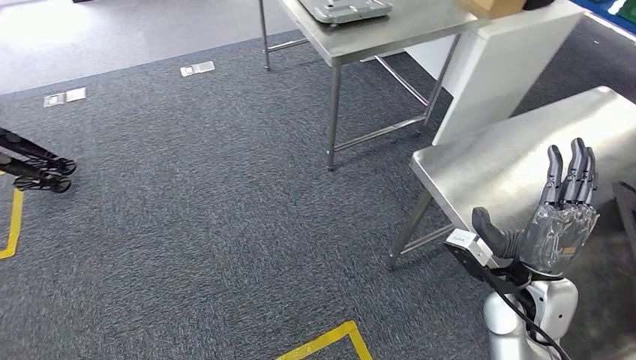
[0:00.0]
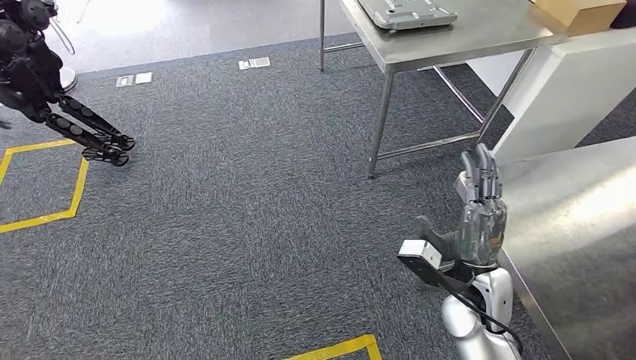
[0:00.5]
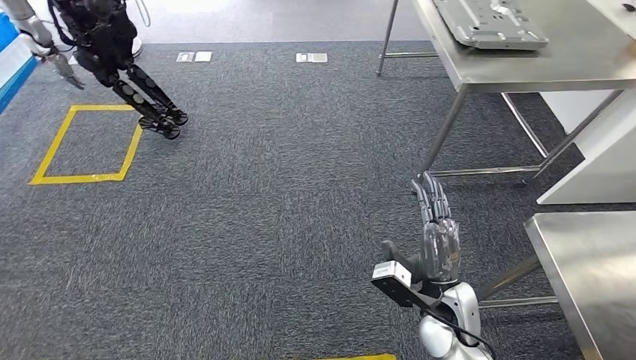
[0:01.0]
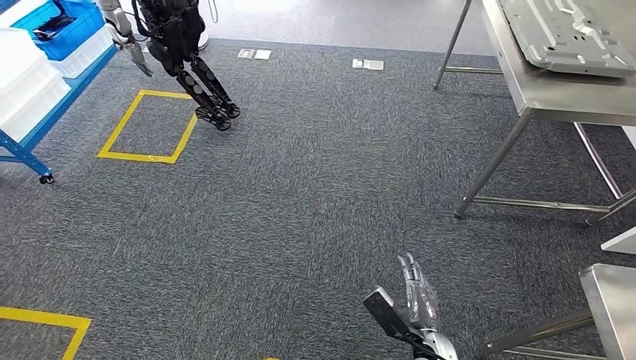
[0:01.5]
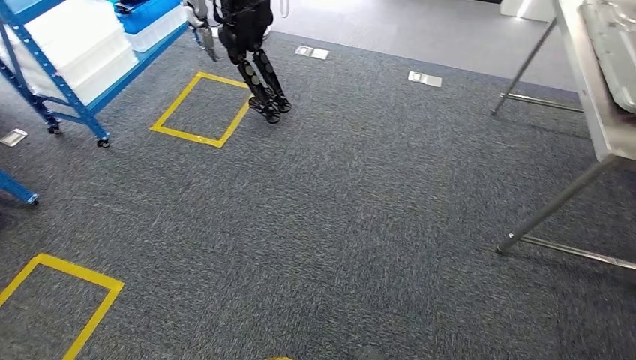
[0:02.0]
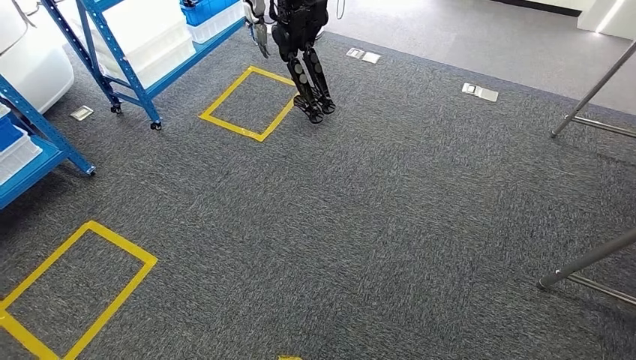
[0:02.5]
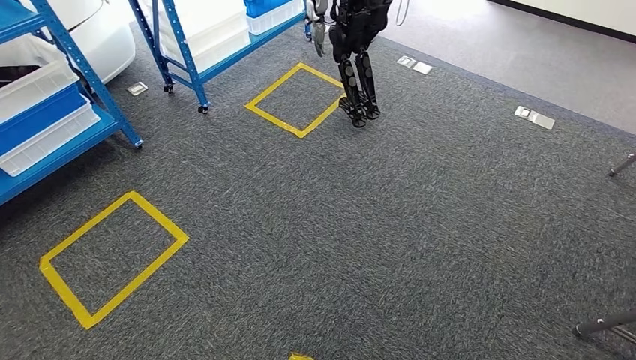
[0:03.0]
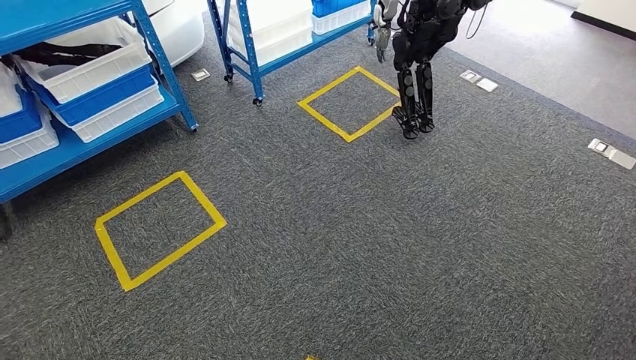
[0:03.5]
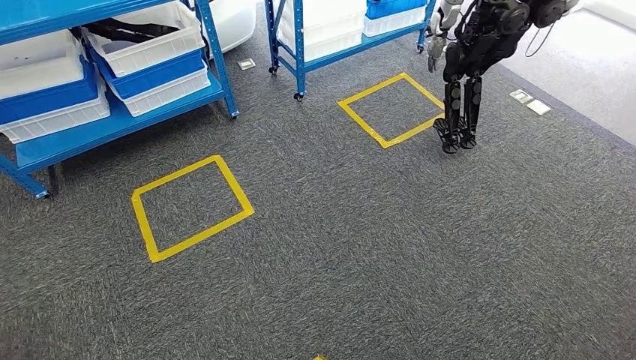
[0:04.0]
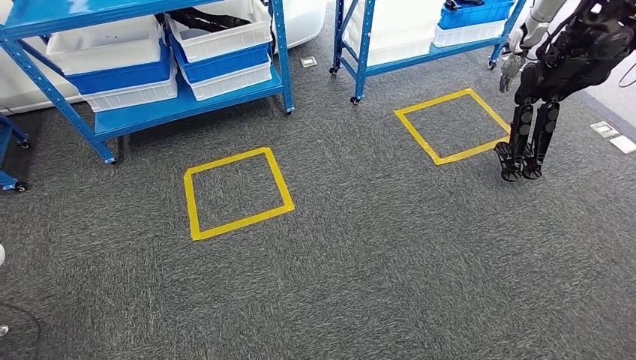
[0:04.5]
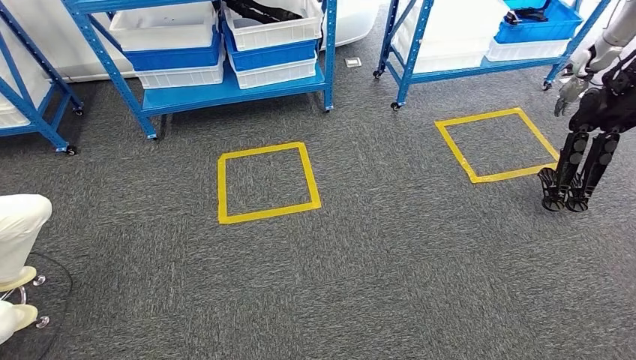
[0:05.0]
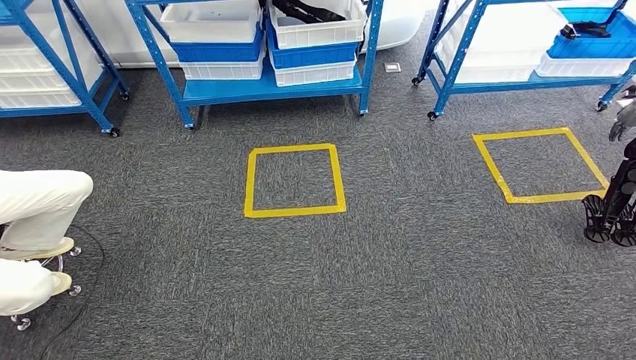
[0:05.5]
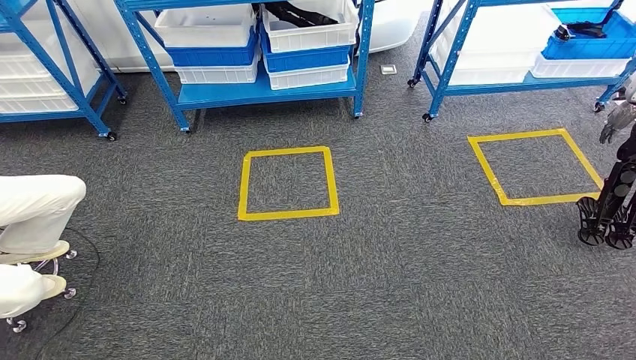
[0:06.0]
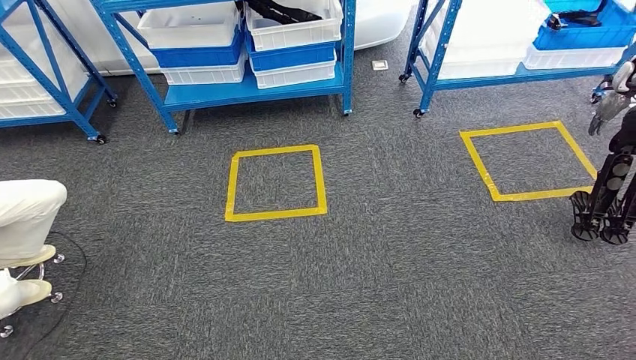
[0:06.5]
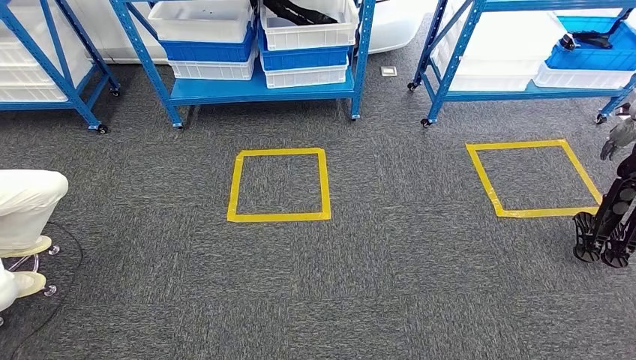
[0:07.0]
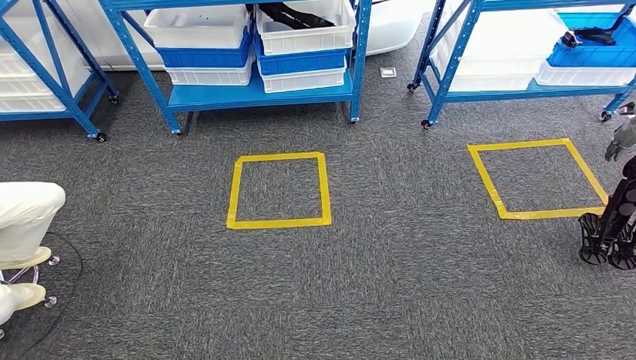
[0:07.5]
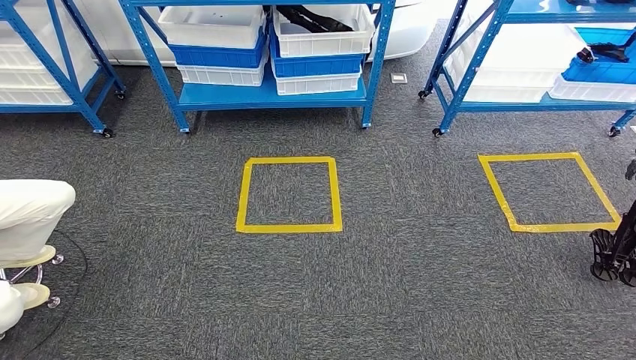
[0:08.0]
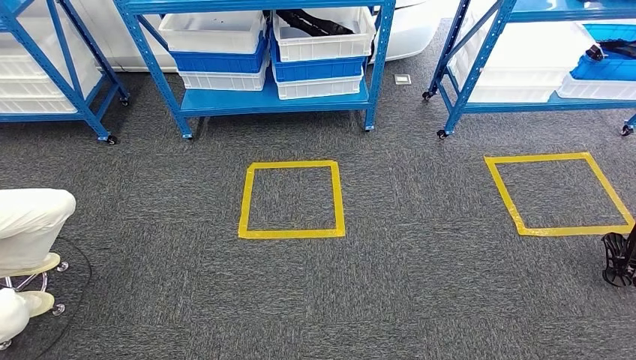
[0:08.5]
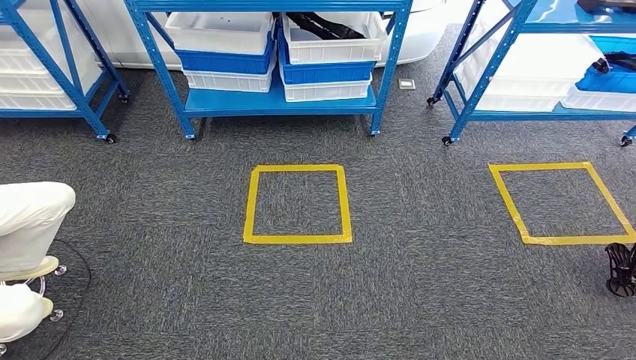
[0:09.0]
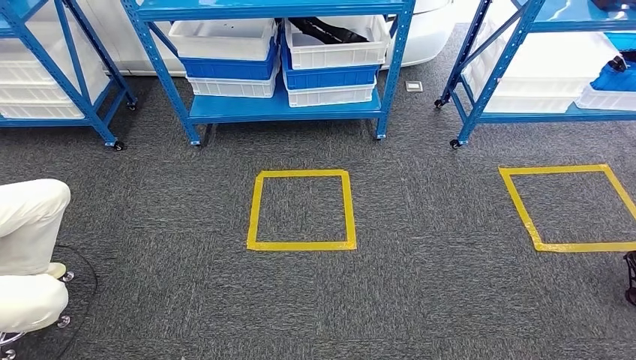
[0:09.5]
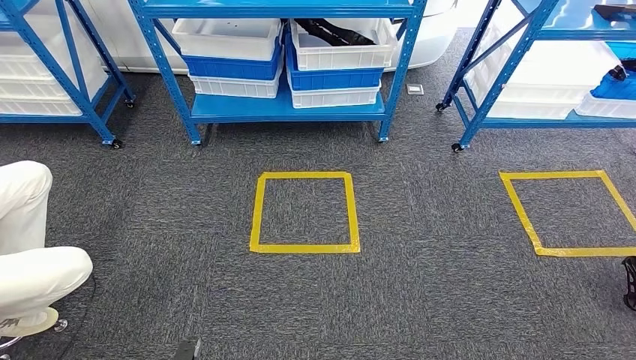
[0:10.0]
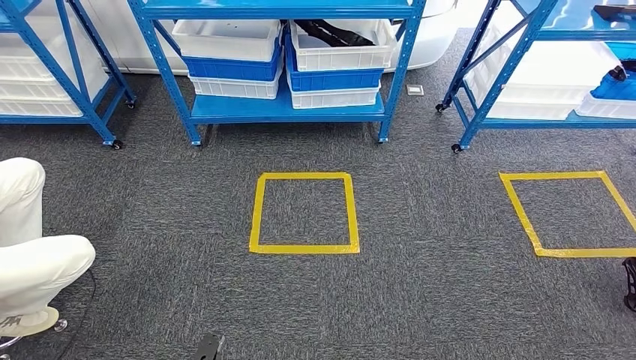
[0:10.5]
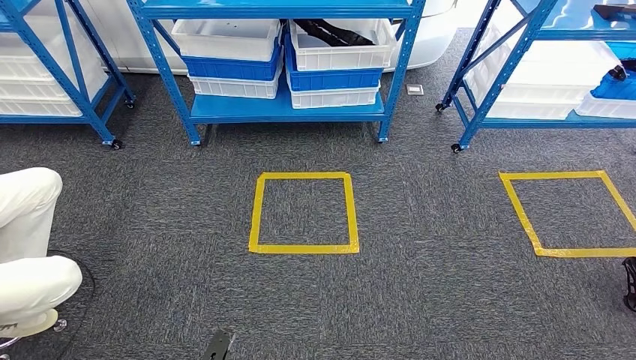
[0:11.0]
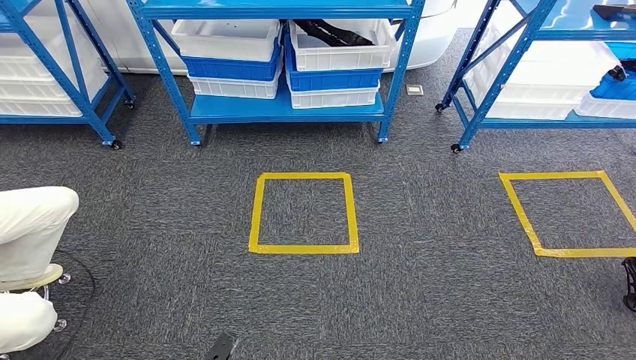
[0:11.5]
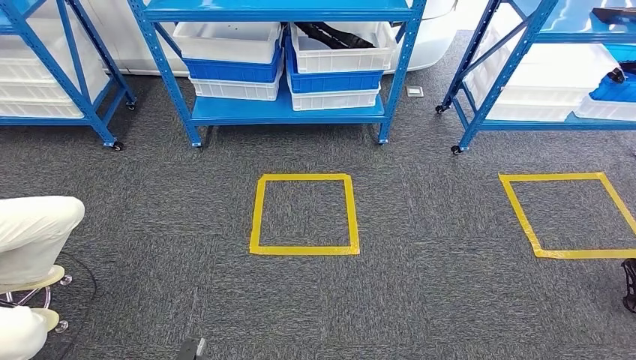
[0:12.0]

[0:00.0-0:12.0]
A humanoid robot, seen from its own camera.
0:10.0 to 0:12.0: The right hand travels to the right by roughly 5 cm.

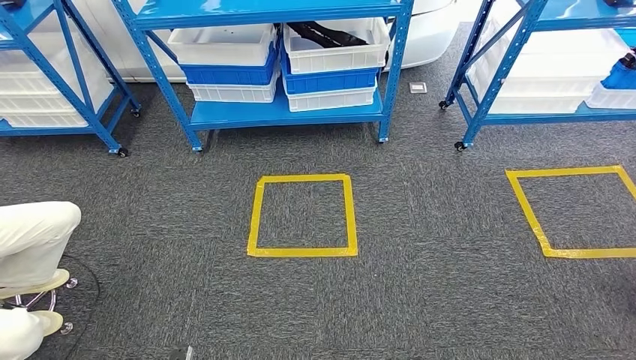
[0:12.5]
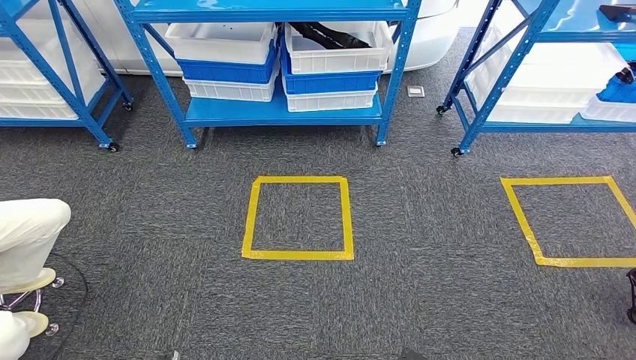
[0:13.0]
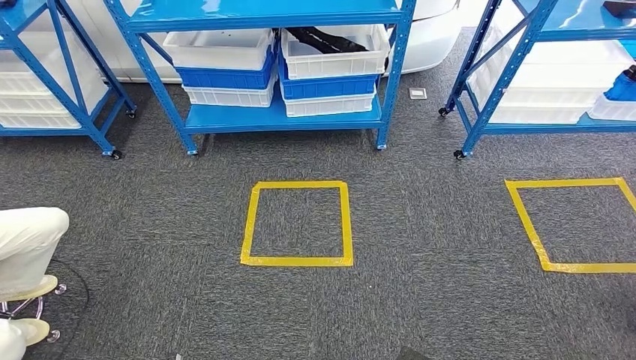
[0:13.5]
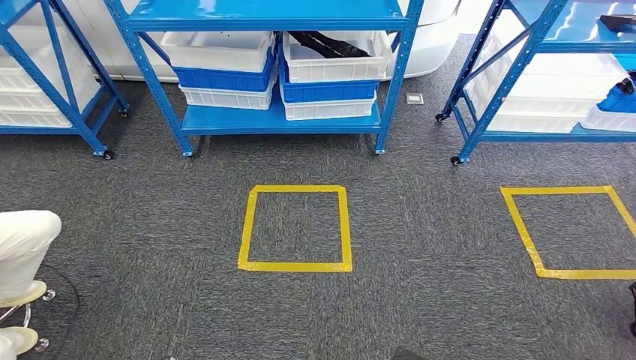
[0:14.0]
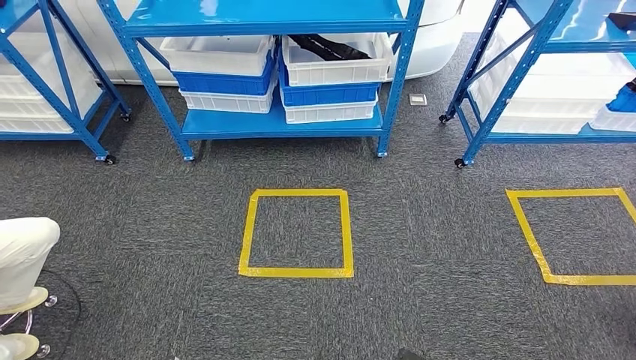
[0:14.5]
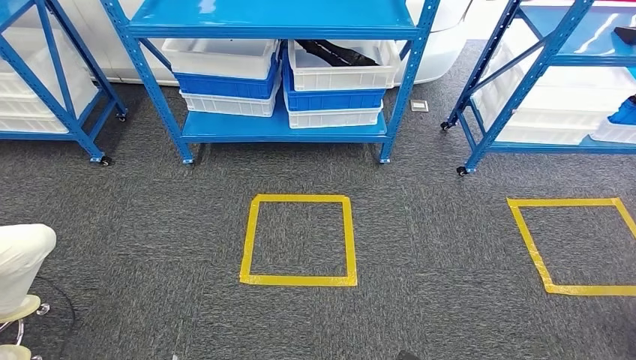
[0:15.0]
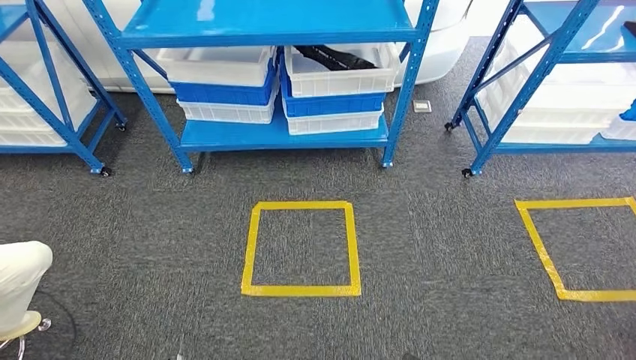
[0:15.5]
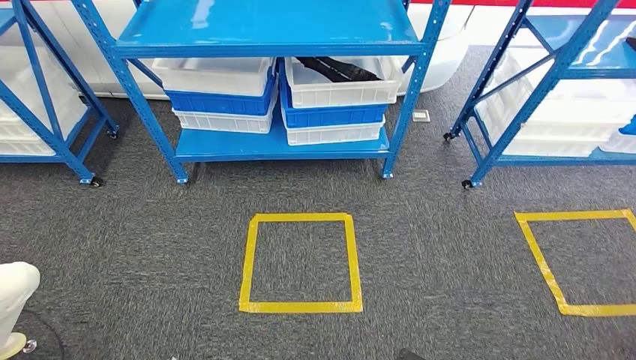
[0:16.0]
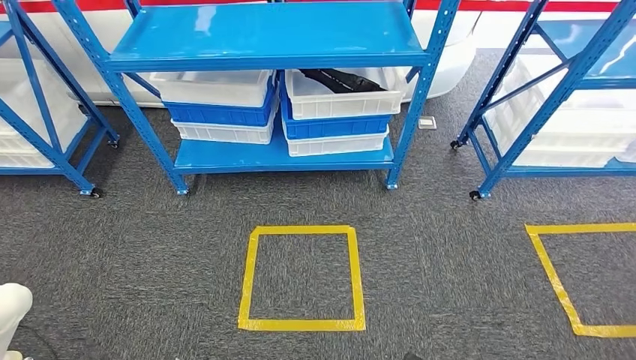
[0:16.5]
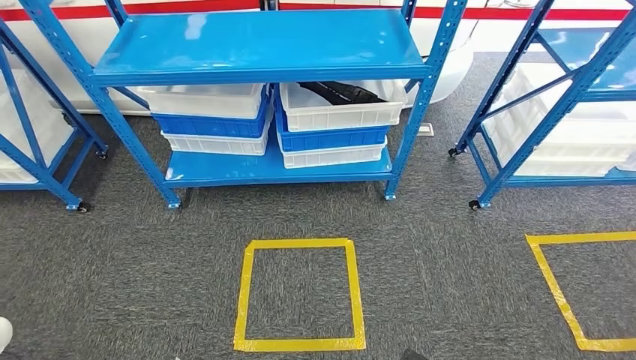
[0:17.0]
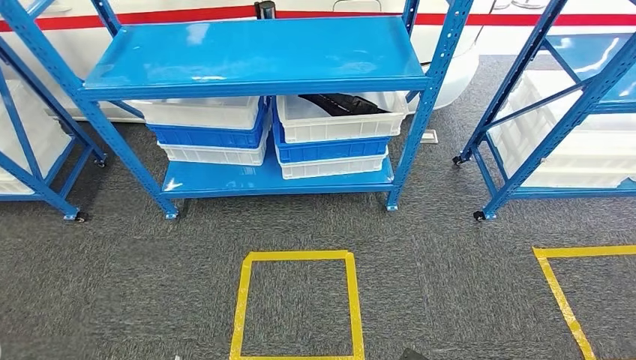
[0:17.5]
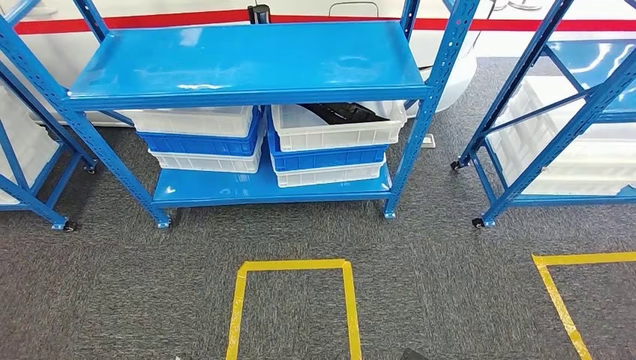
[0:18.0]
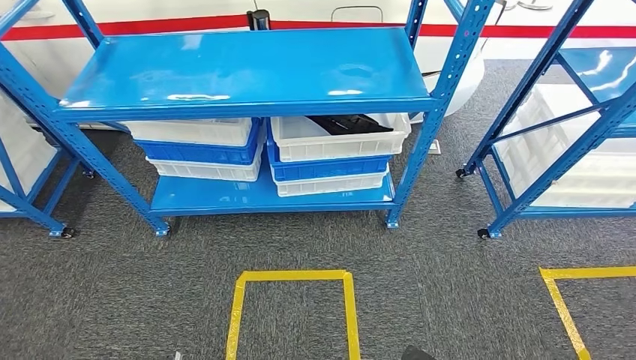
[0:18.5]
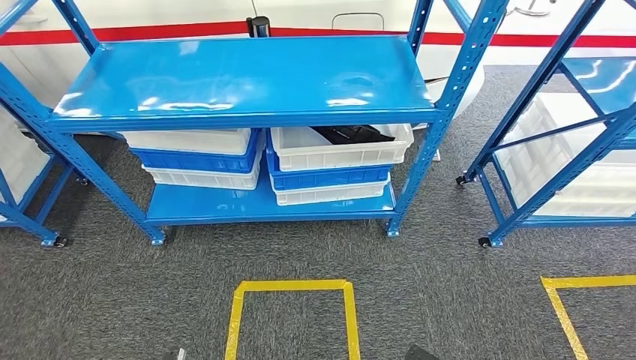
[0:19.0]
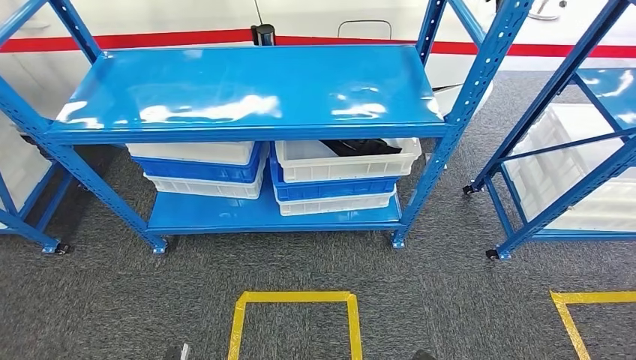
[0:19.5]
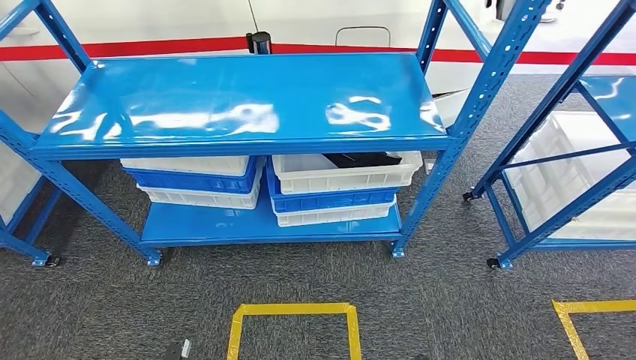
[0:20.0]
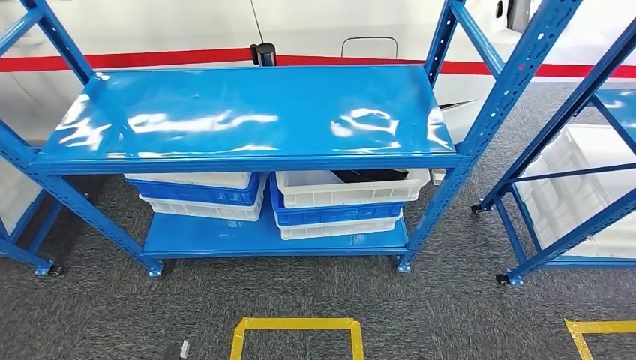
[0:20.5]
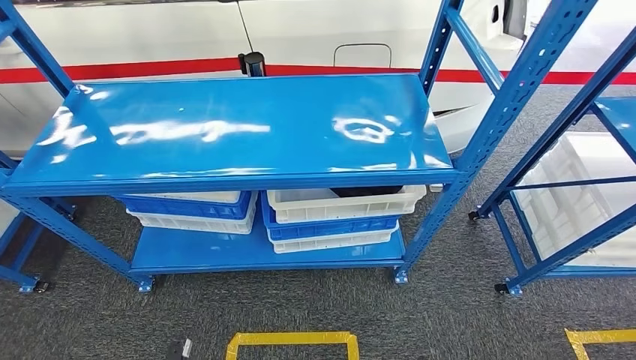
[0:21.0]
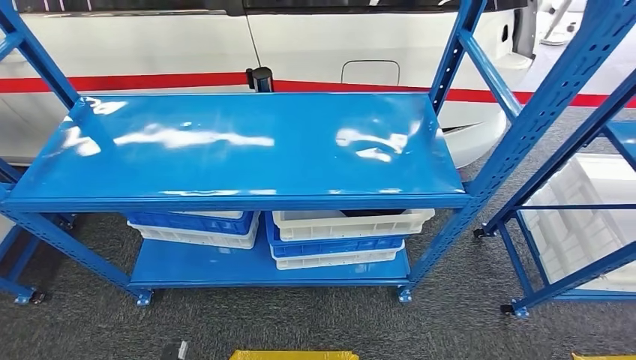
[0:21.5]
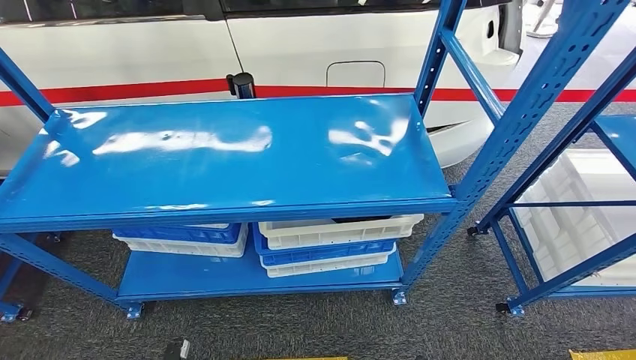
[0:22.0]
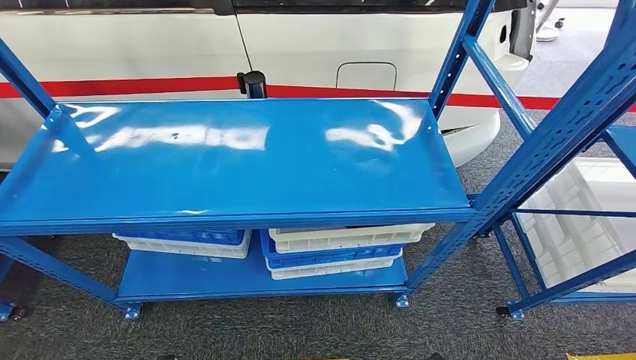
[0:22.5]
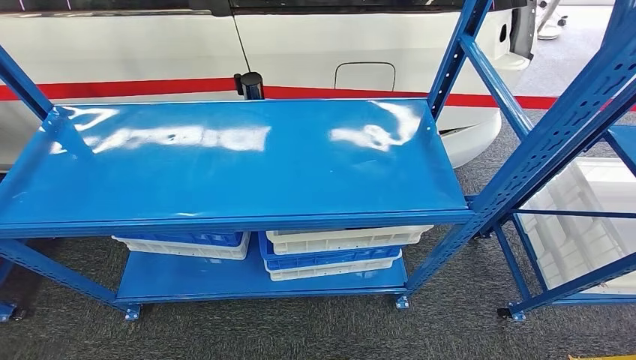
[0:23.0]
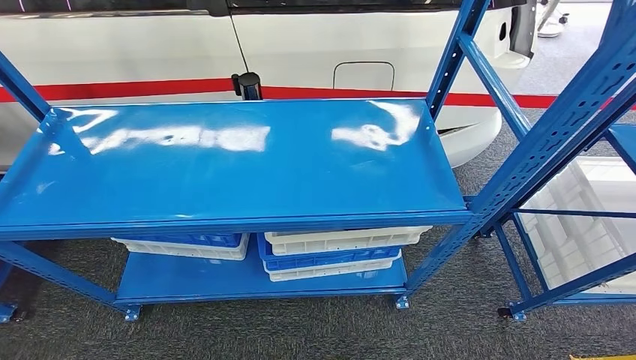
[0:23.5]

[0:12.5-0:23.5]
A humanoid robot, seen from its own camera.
Step, 0:12.5 to 0:23.5: Move to the initial position of the shelf.
